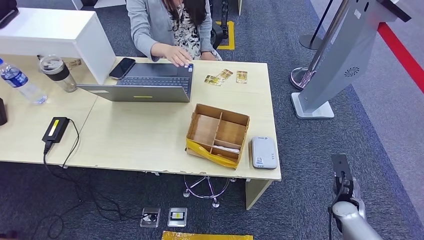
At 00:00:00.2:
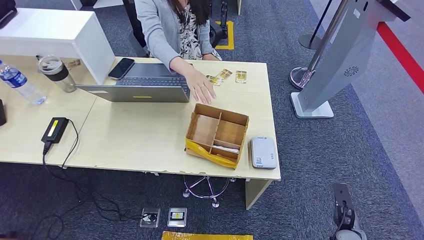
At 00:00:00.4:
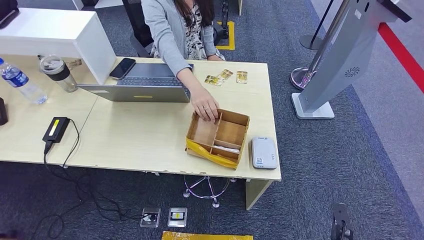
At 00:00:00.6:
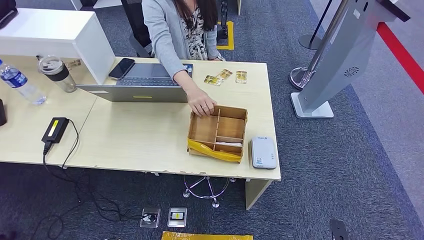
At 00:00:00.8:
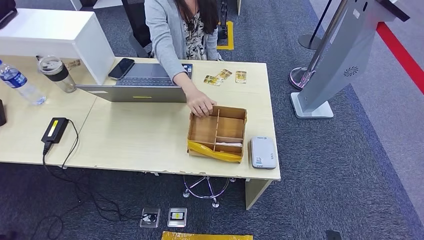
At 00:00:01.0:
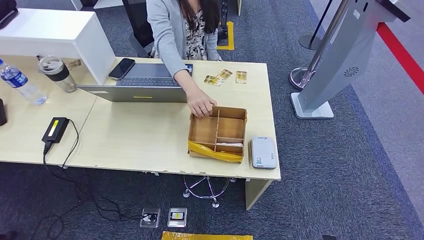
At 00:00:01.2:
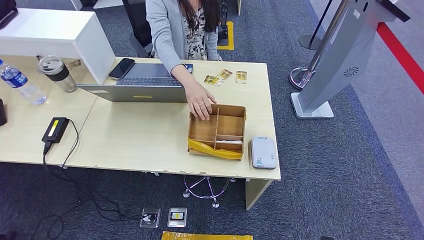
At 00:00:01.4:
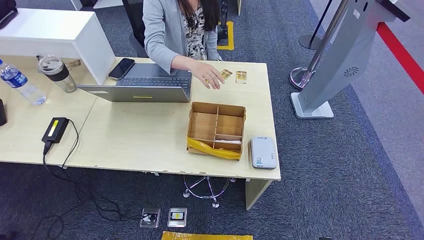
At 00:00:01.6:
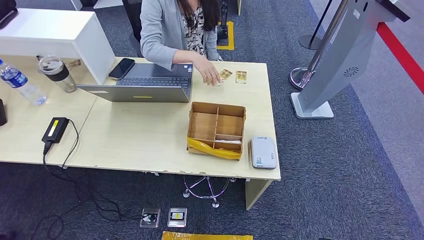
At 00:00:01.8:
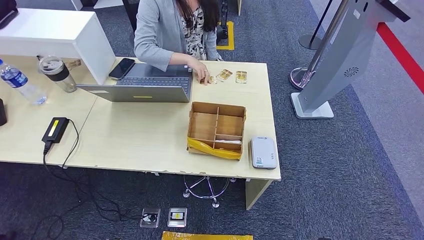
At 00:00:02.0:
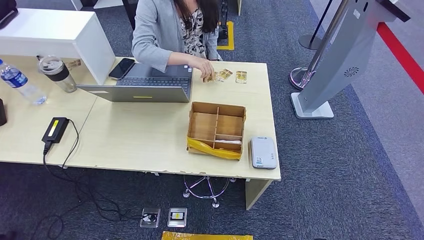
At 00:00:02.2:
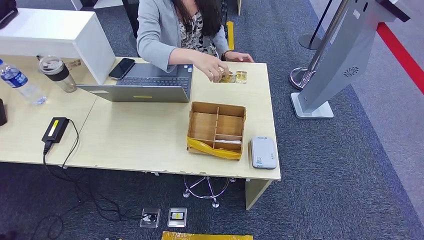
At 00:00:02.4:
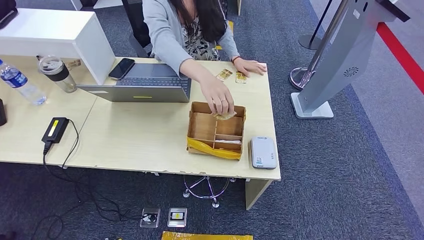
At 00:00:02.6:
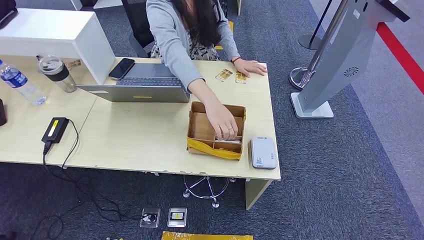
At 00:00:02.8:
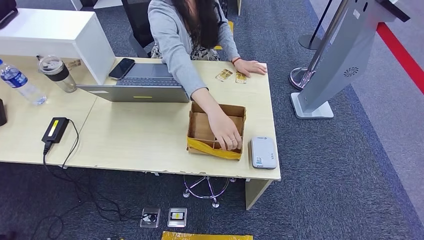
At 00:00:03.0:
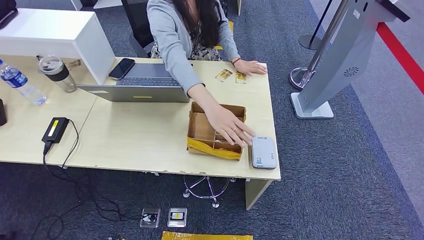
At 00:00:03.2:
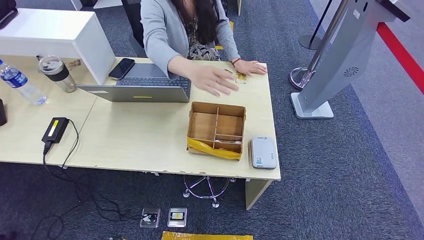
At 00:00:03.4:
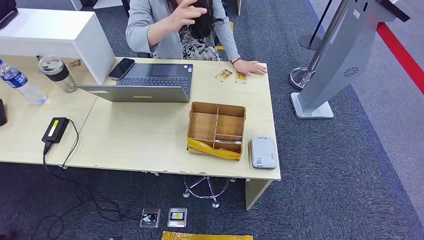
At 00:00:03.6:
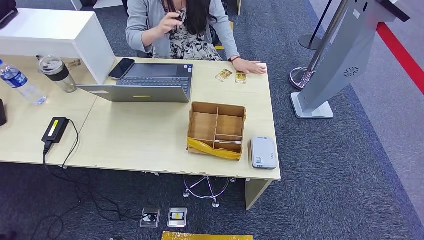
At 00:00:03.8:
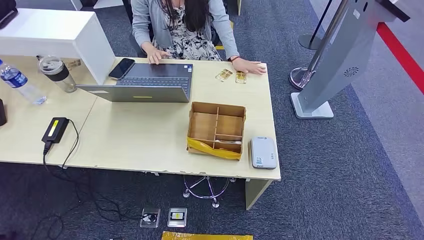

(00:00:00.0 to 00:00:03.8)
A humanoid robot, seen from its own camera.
Step, 00:00:00.0 - 00:00:03.6: Hand the room key to the person.
00:00:00.0 - 00:00:01.2: The right hand moves backward and downward, roughly 25 cm.
00:00:01.2 - 00:00:03.8: The hands make only small movements.
